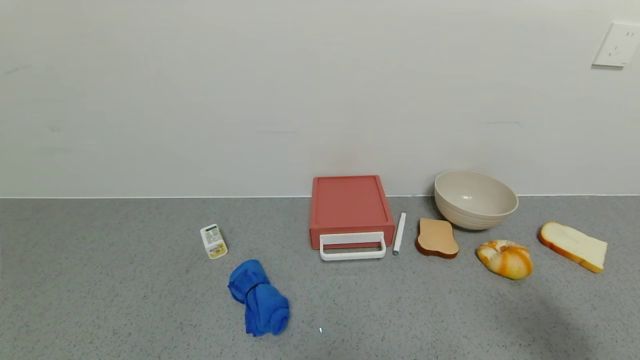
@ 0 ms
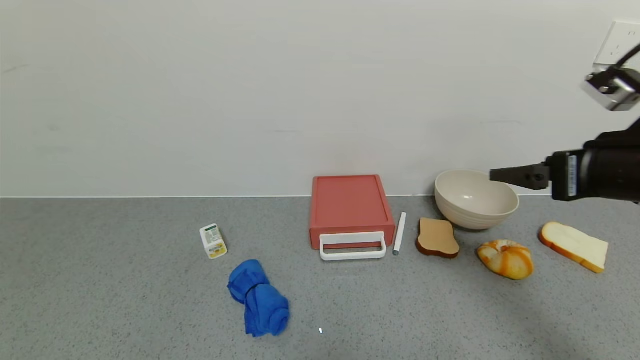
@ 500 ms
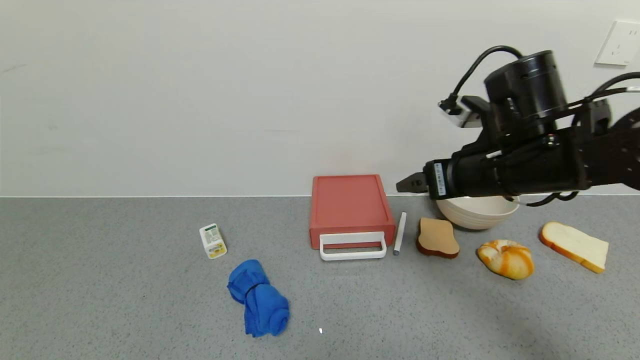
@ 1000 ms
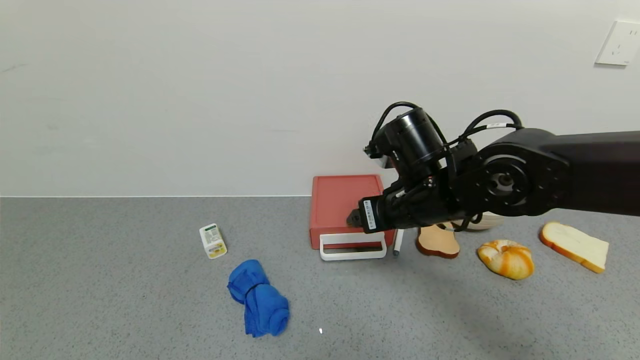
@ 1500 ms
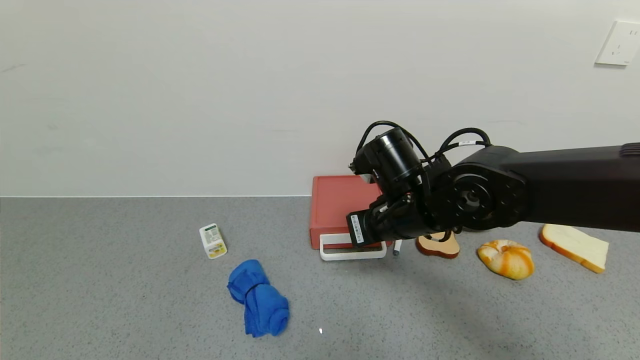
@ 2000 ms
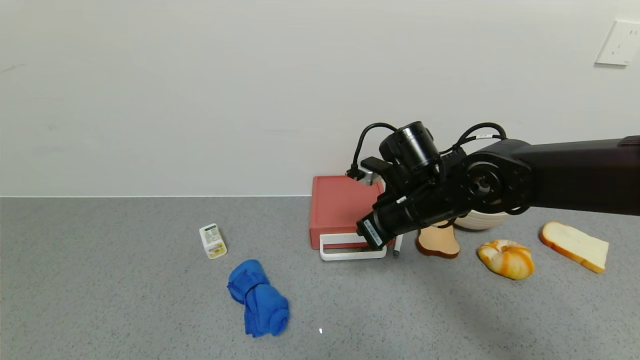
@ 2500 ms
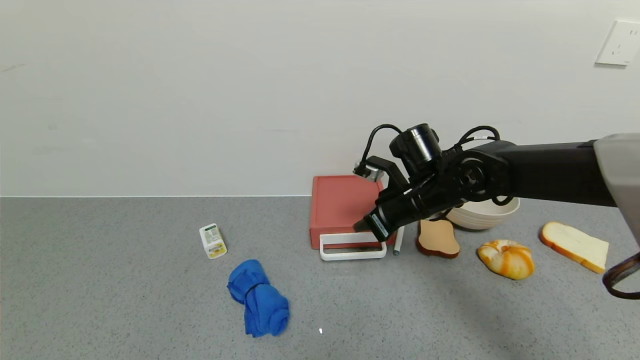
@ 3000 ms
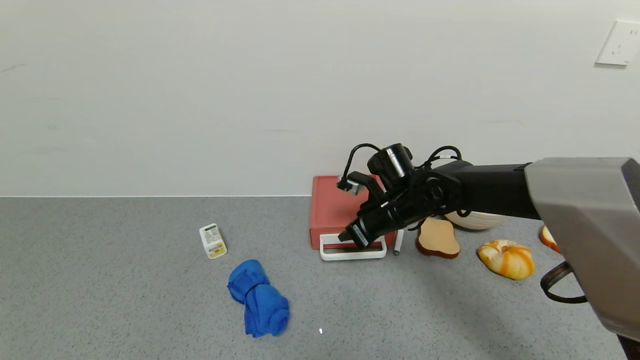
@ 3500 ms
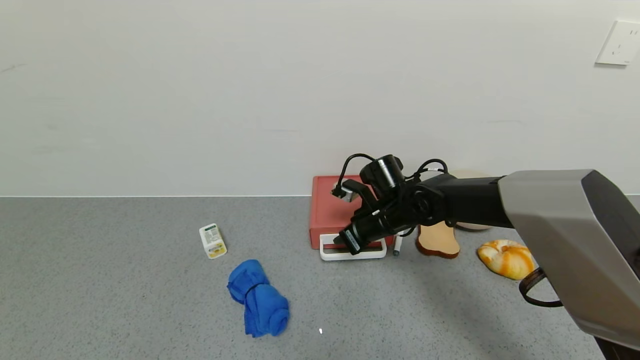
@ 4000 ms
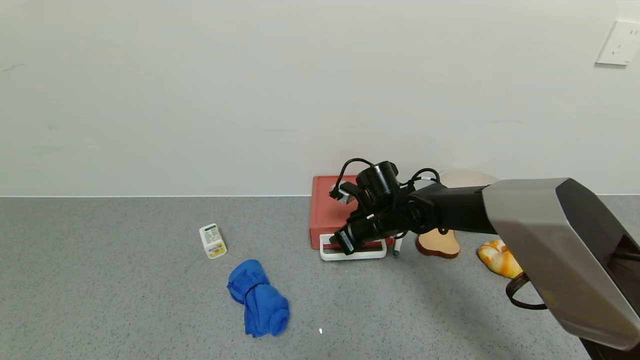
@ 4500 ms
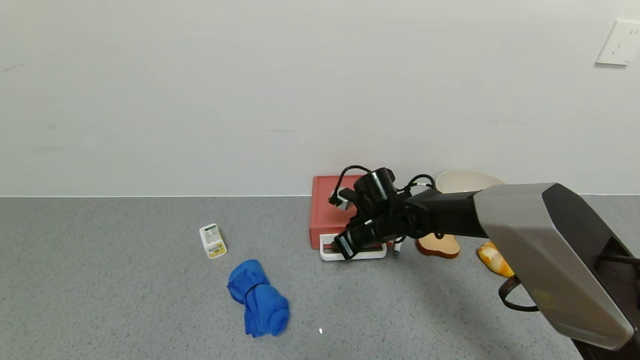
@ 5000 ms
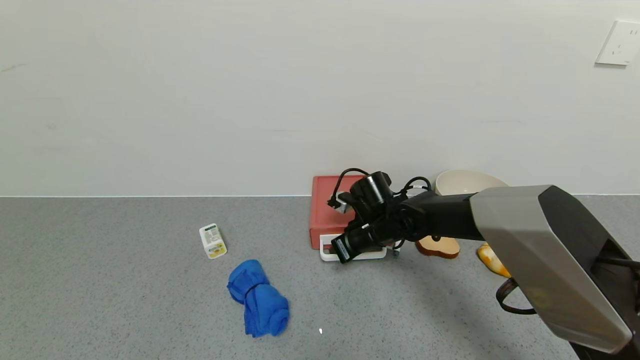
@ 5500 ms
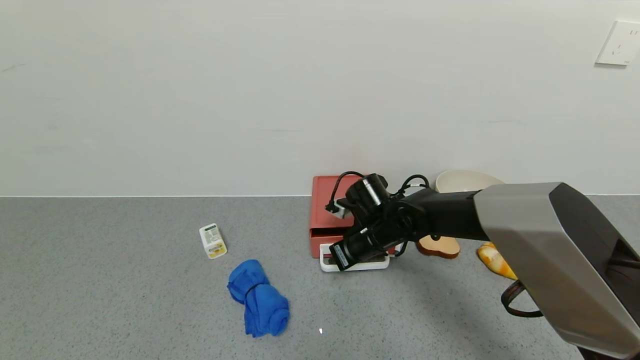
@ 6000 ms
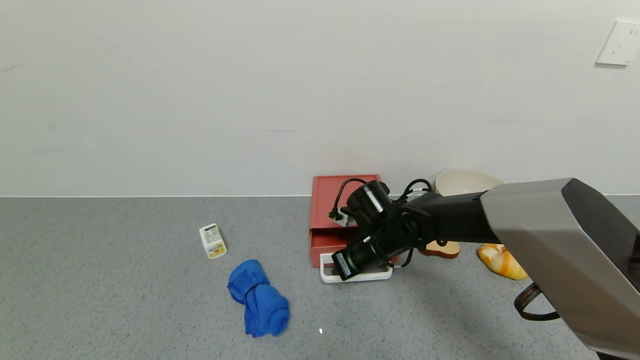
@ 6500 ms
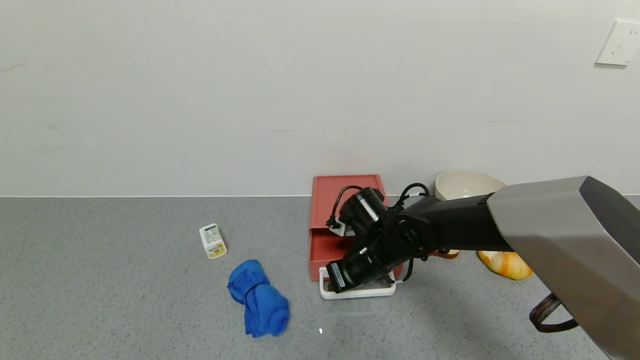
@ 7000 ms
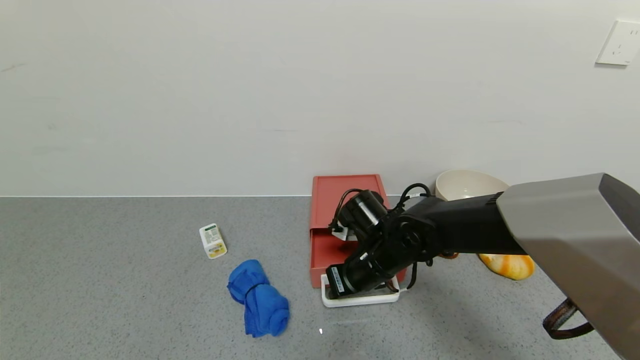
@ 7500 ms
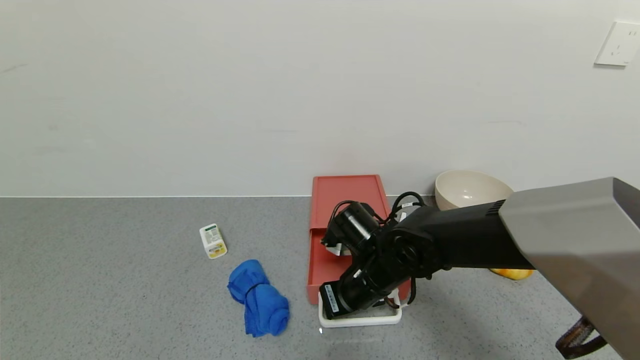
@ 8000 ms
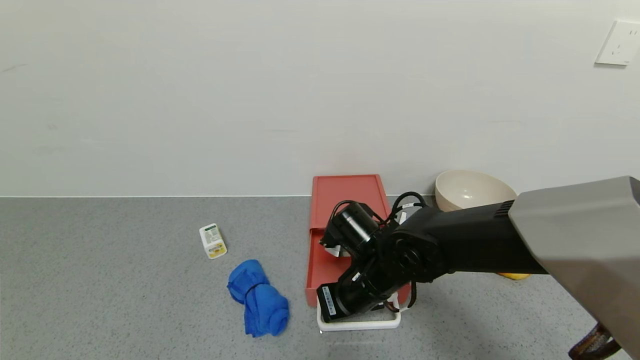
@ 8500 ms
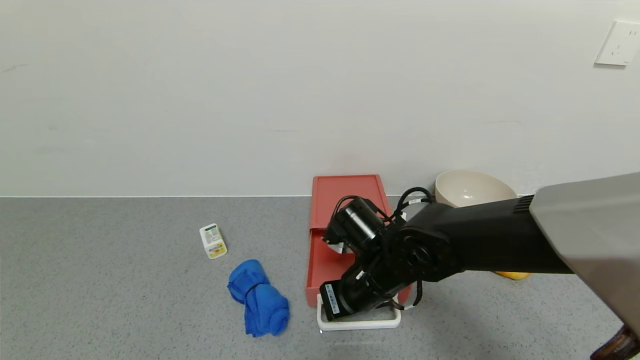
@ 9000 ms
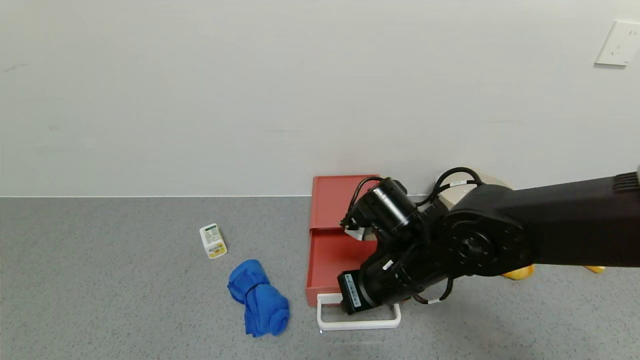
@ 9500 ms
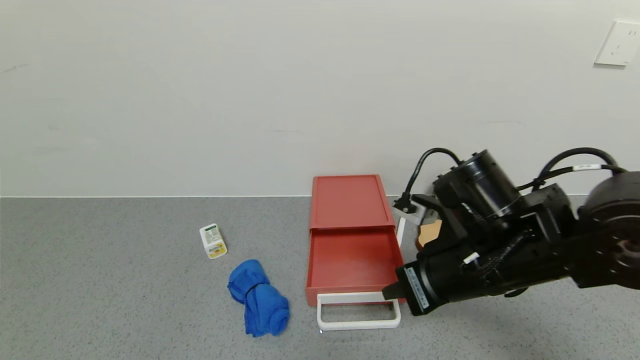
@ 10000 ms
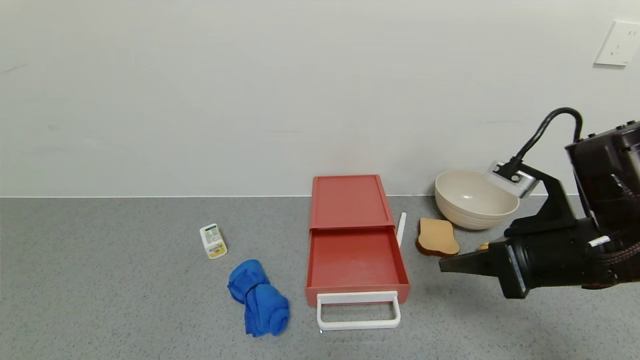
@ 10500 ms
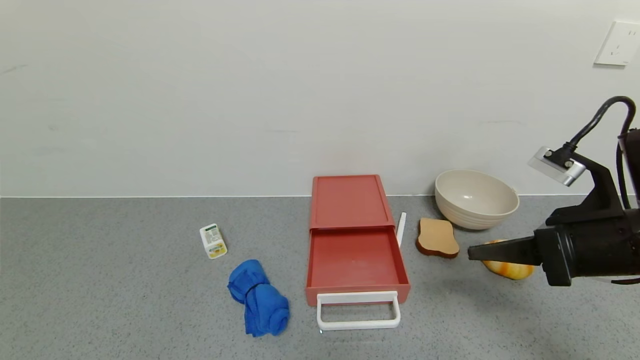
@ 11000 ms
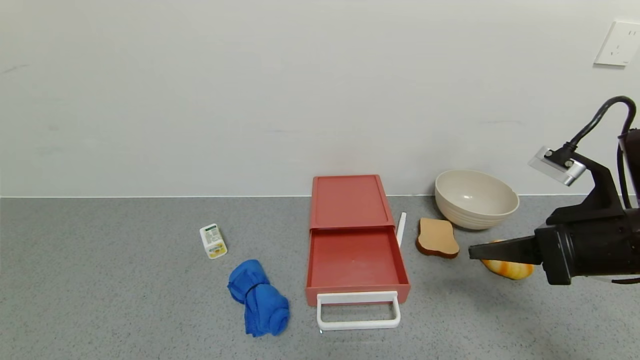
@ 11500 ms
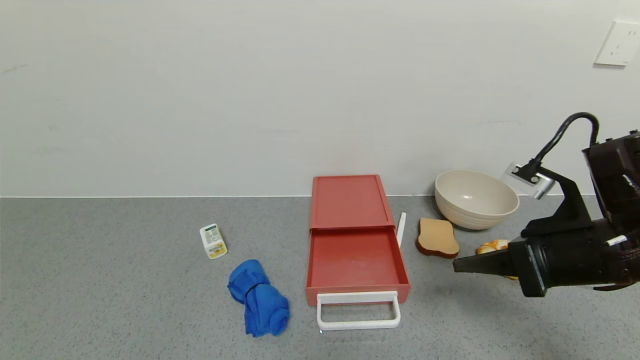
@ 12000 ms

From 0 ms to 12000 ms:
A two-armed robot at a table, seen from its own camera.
Task of the whole recording: use the gripper to open the drawer and close the red drawer.
Step, from 0 ms to 9000 ms: Open the red drawer with the right gripper.
From 0 ms to 2000 ms: The right gripper shifts approximately 35 cm to the left and forward, and closes its fingers.
From 2000 ms to 4000 ms: The right gripper is displaced forward and downward by some 10 cm.
From 4000 ms to 6000 ms: The grippers make only small movements.
From 6000 ms to 8000 ms: The right gripper travels backward by approximately 10 cm.
From 8000 ms to 10000 ms: The right gripper is displaced upward, to the right and backward by roughly 15 cm.
From 10000 ms to 12000 ms: The right gripper heads to the right, covering about 10 cm.

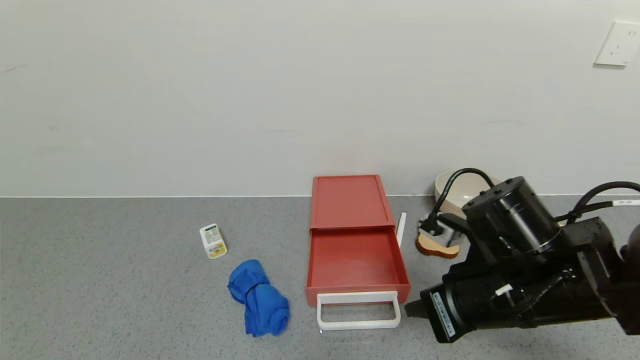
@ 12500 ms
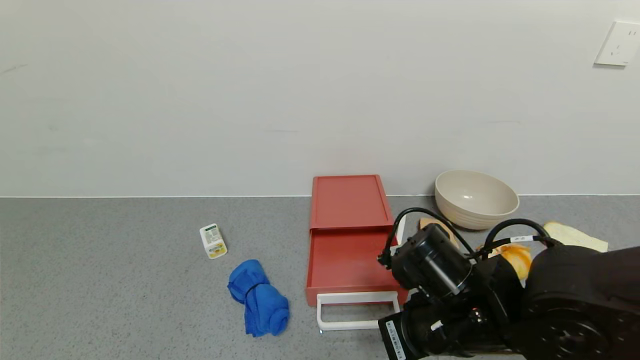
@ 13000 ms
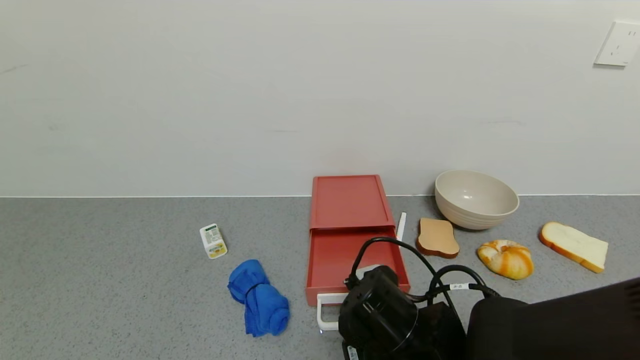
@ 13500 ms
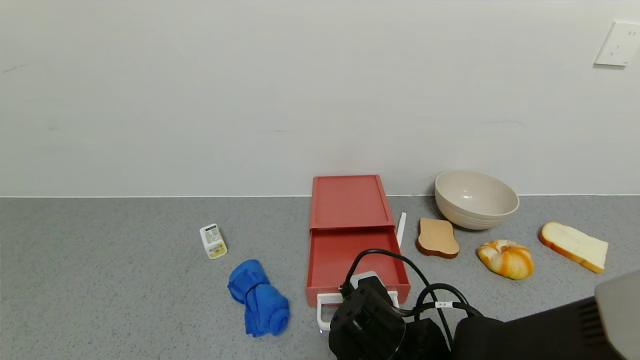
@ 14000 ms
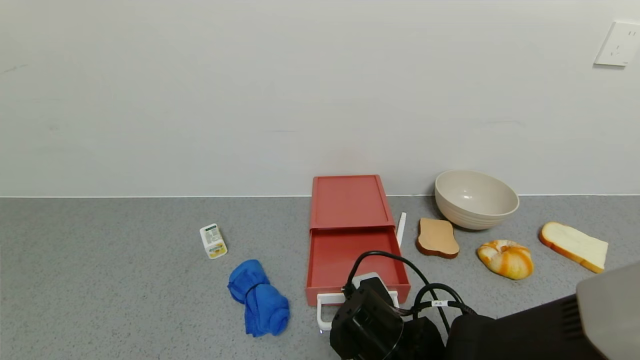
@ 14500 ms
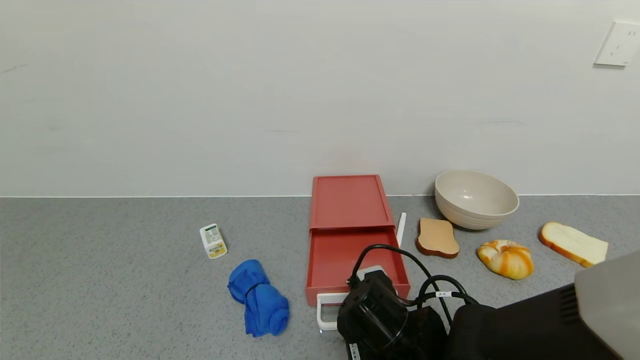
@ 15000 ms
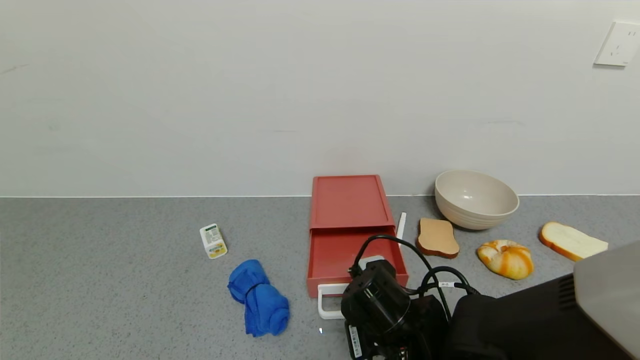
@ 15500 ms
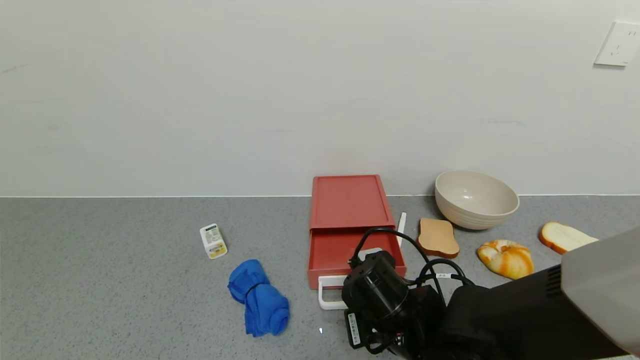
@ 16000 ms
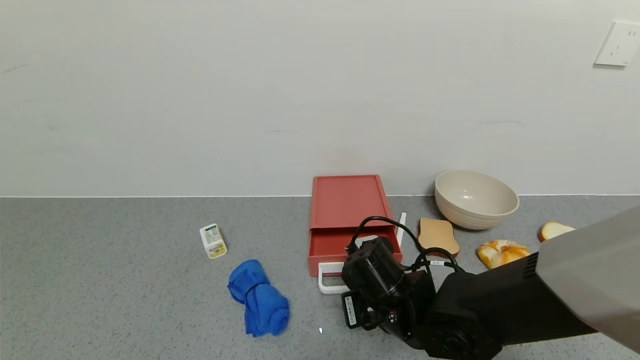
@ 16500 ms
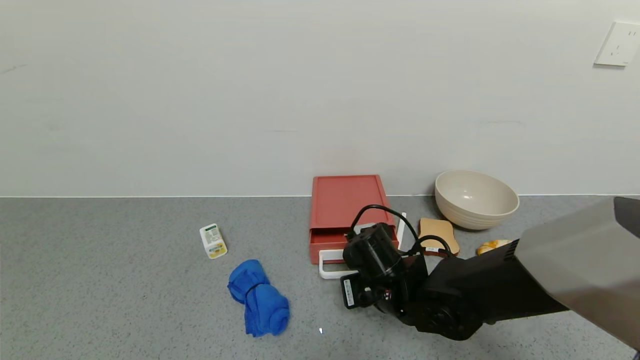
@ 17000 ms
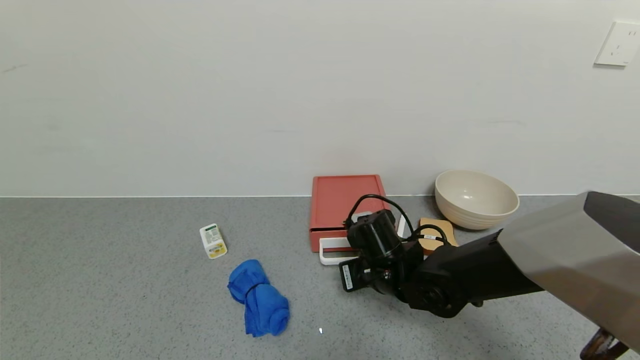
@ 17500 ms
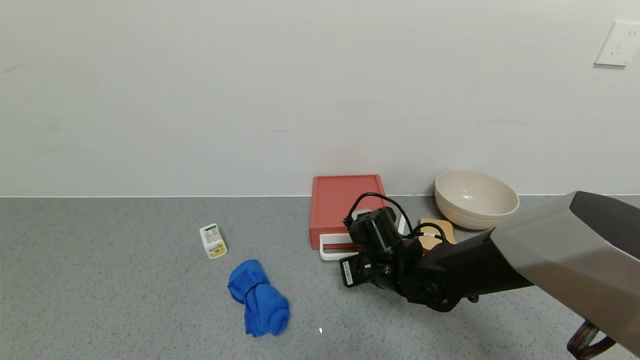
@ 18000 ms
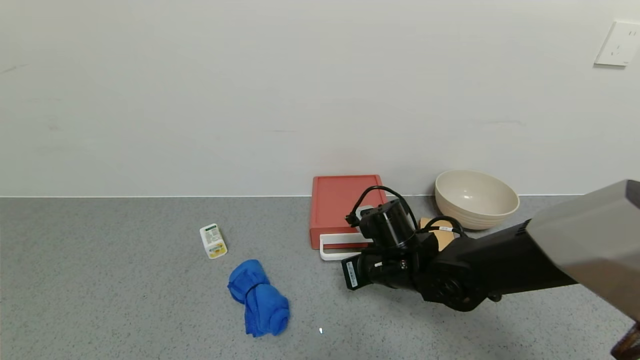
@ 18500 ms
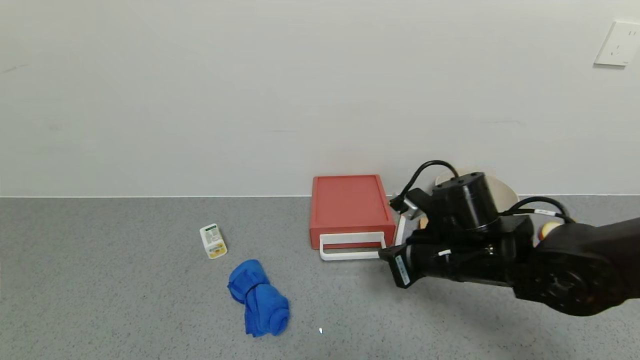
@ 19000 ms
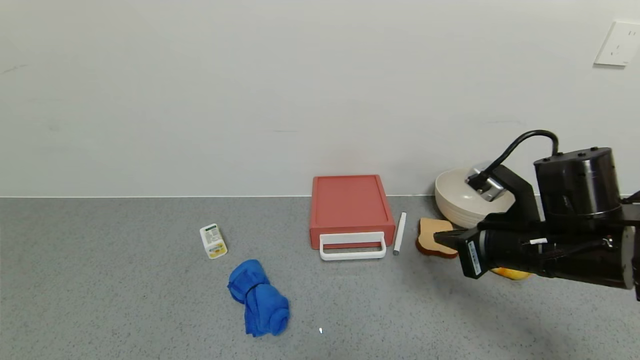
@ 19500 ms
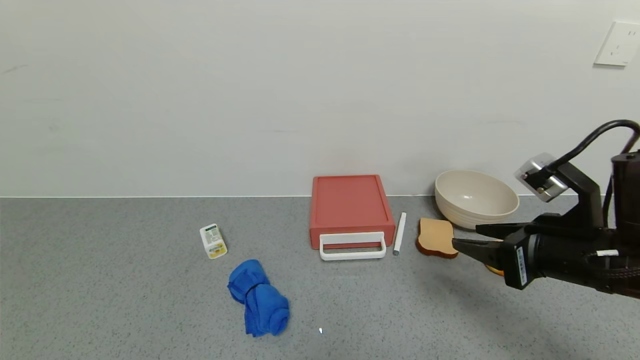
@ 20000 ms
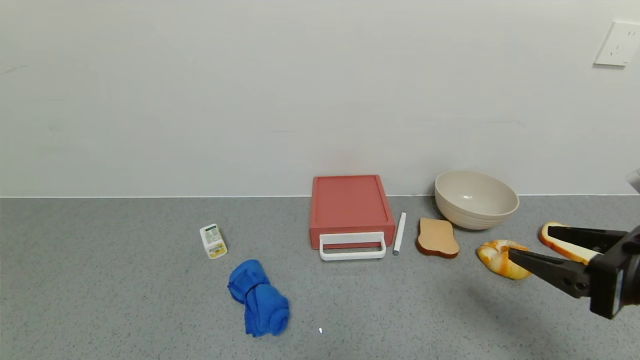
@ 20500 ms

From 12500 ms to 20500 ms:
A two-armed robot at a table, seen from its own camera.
Task of the whole recording: use the gripper to open the drawer and close the red drawer.
Step, from 12500 ms to 18500 ms: Close the red drawer with the right gripper.
From 12500 ms to 14500 ms: The right gripper shifts some 15 cm downward and to the left.
From 14500 ms to 16500 ms: The right gripper shifts some 5 cm forward.
From 16500 ms to 18500 ms: The right gripper heads forward, covering about 5 cm.
From 18500 ms to 20500 ms: The right gripper moves to the right, backward and upward, some 30 cm, and opens.
